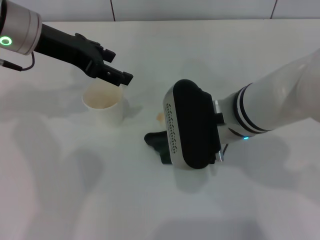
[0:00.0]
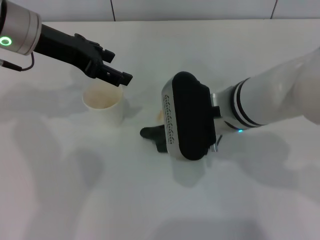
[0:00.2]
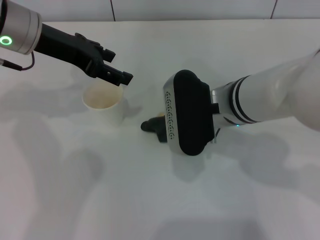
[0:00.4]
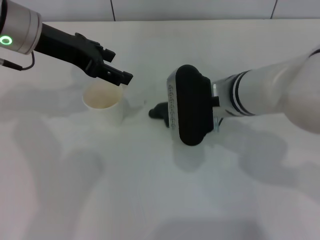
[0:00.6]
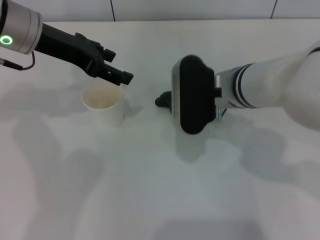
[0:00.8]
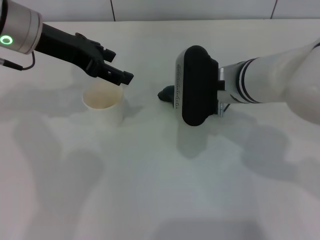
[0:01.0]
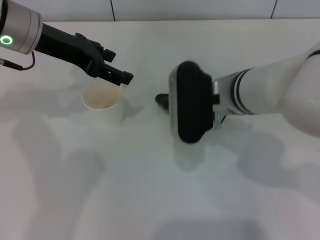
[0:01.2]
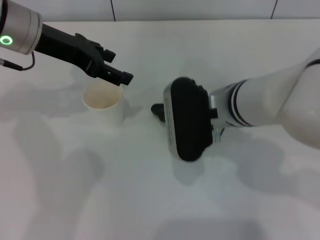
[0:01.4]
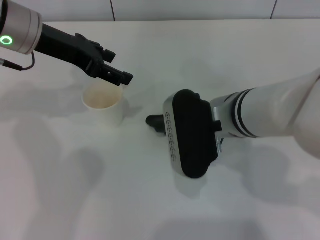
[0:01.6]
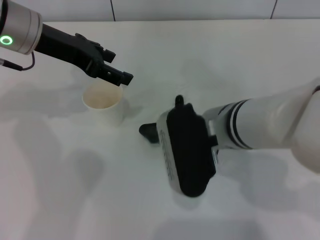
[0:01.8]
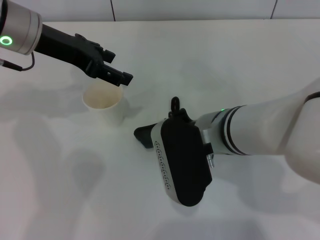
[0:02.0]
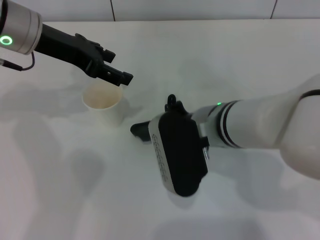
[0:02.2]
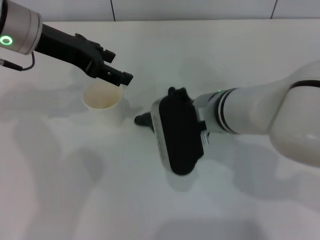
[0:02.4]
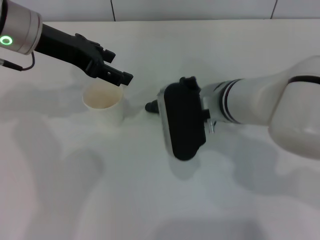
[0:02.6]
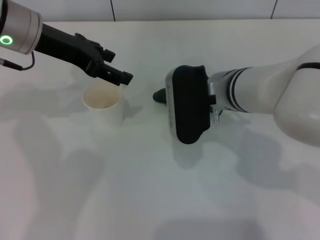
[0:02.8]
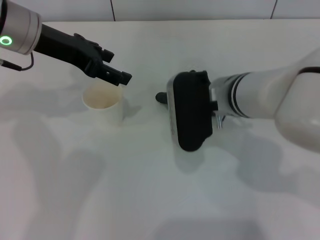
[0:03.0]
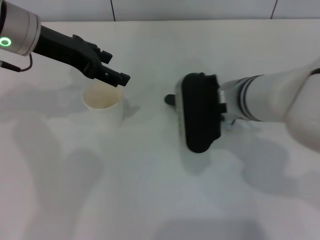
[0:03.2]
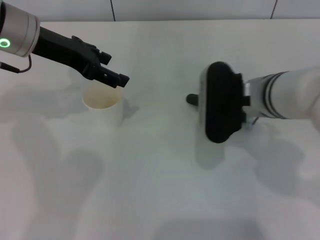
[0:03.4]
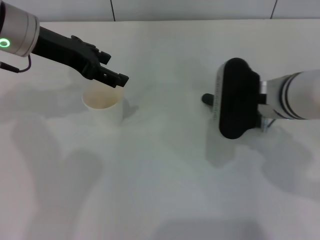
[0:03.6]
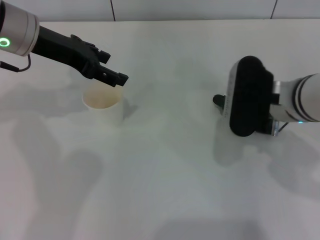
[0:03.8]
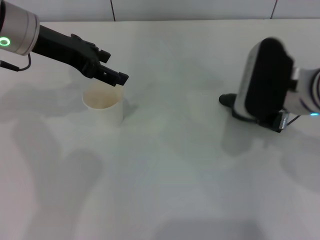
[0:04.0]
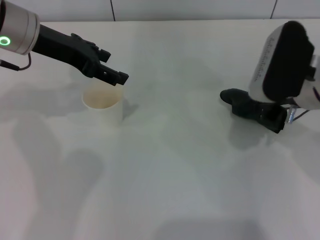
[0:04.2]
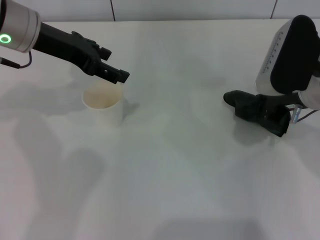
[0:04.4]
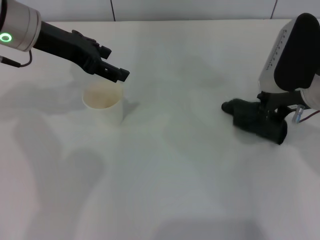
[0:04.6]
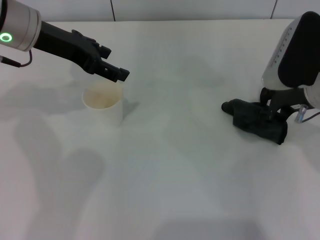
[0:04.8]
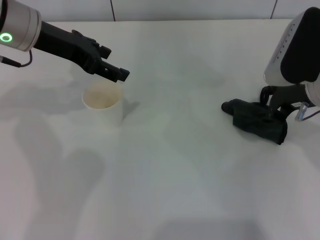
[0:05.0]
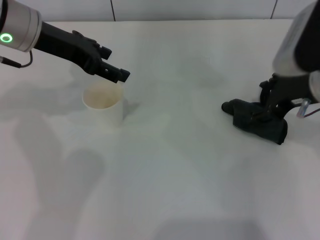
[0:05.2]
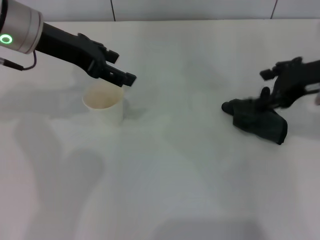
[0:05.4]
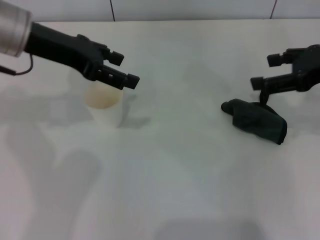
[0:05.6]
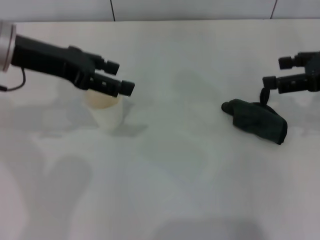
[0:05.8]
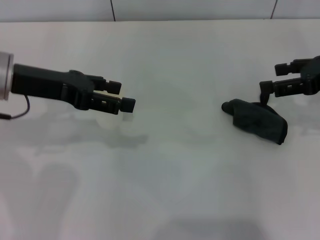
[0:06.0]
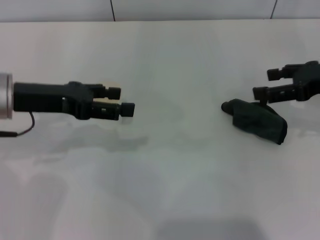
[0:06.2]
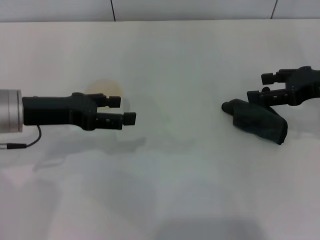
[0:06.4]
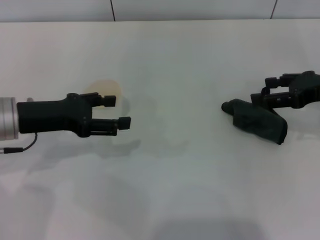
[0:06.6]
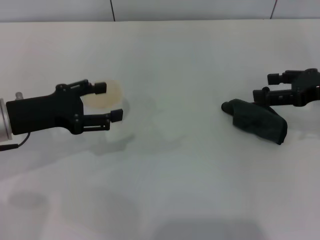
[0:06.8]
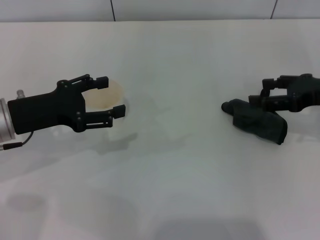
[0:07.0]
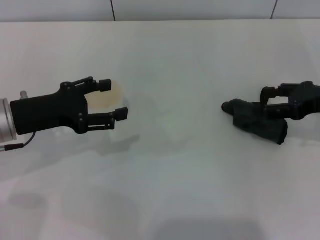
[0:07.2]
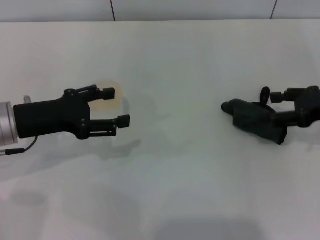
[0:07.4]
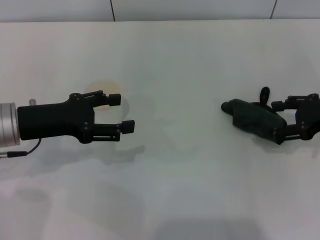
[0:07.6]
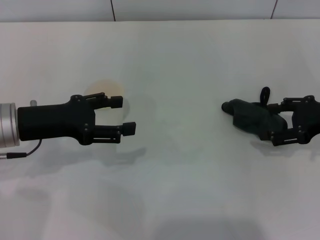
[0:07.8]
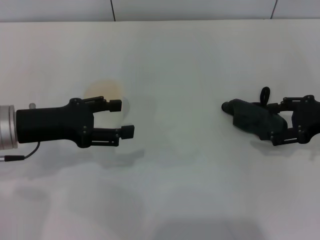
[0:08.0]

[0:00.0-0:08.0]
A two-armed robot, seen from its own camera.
Step, 0.0 to 5.6 s: Wipe the stains off the table with the right gripper.
Step, 5.8 to 6.4 s: Place the rag on the table with the right gripper.
0.0 to 1.6 s: The grippers move only a little.
1.6 to 3.2 s: The grippers stay close to where they were, moving slightly.
3.2 to 4.8 s: The right gripper is displaced to the right by roughly 10 cm.
4.8 to 6.4 s: The left gripper is displaced downward and backward by some 10 cm. Meanwhile the right gripper moves to the right, some 10 cm, and opens.

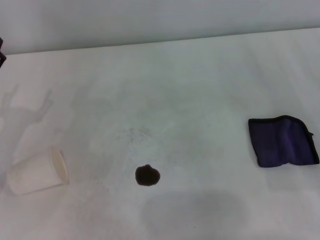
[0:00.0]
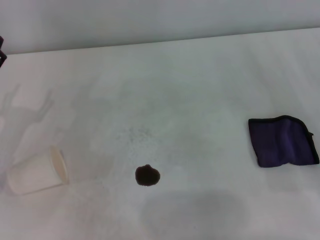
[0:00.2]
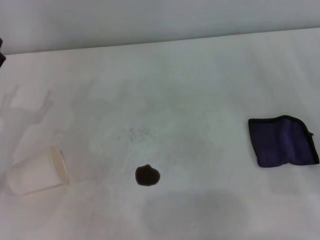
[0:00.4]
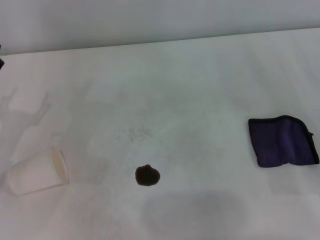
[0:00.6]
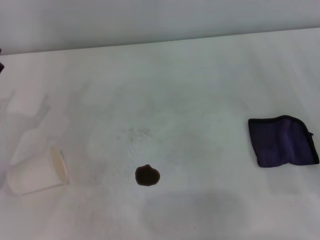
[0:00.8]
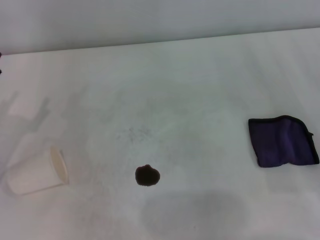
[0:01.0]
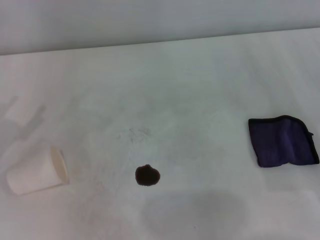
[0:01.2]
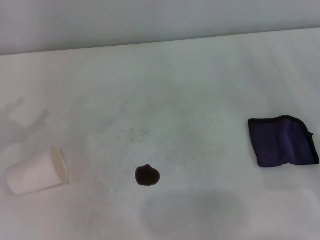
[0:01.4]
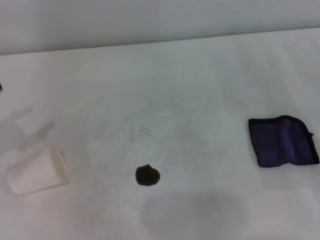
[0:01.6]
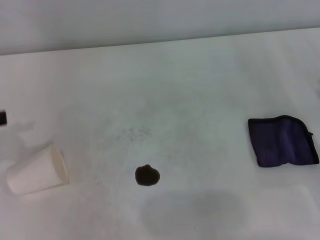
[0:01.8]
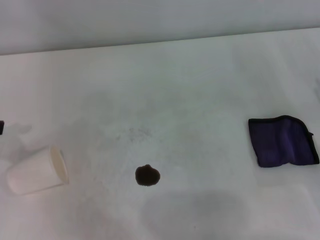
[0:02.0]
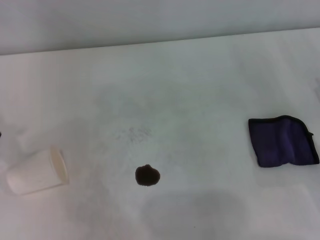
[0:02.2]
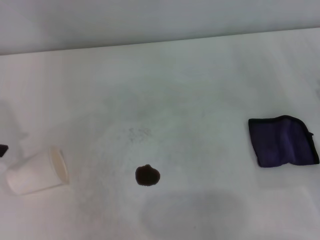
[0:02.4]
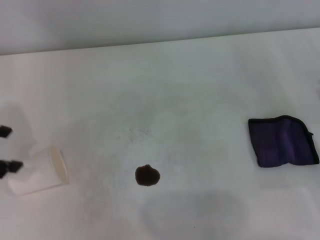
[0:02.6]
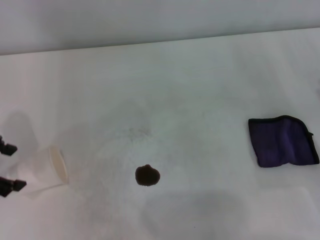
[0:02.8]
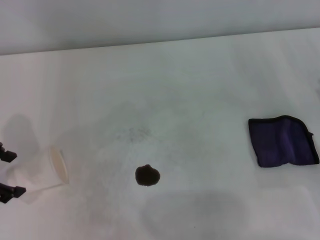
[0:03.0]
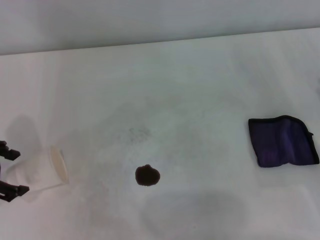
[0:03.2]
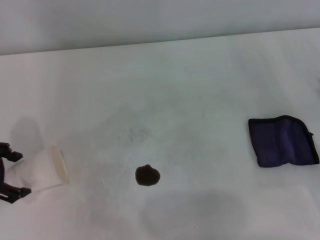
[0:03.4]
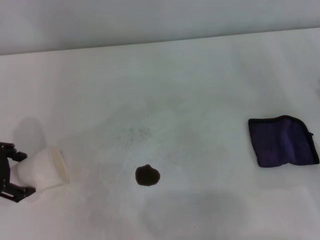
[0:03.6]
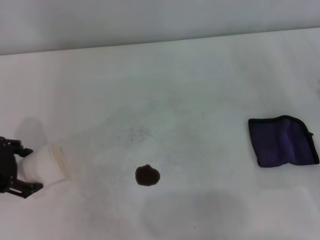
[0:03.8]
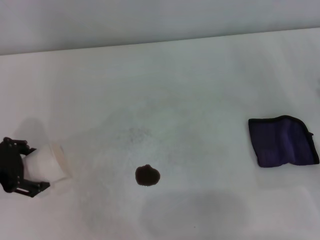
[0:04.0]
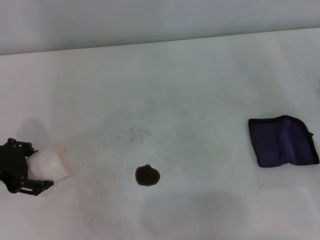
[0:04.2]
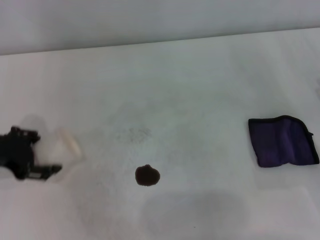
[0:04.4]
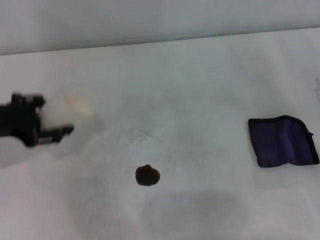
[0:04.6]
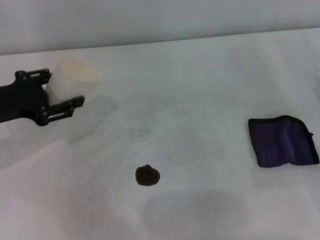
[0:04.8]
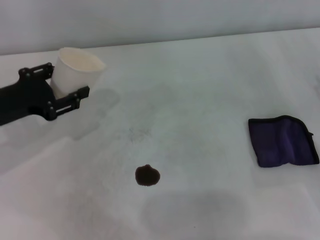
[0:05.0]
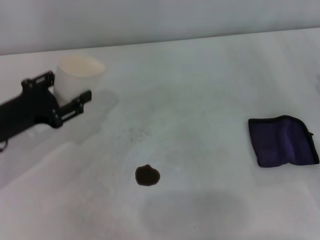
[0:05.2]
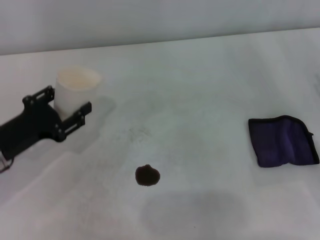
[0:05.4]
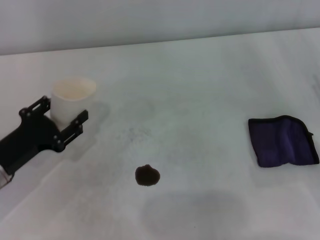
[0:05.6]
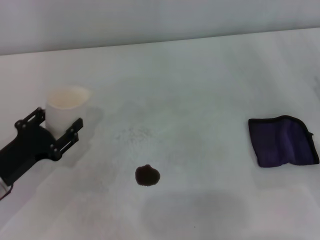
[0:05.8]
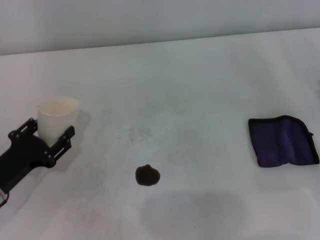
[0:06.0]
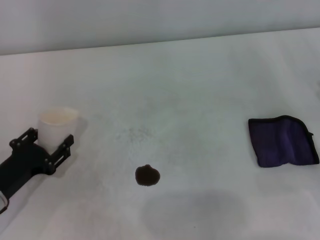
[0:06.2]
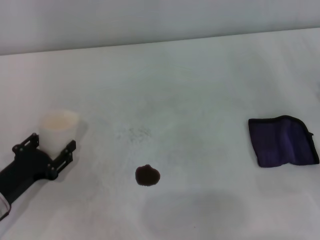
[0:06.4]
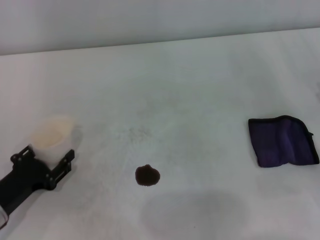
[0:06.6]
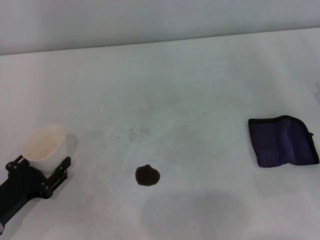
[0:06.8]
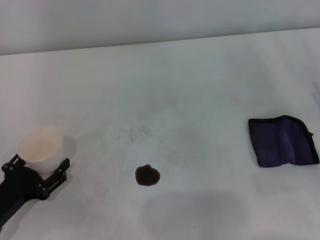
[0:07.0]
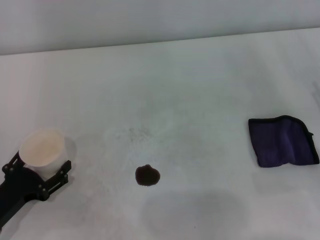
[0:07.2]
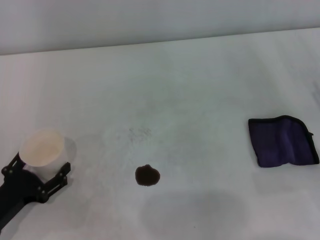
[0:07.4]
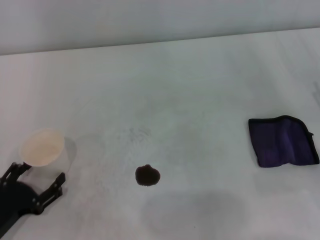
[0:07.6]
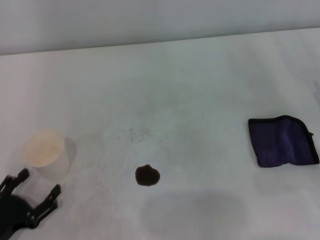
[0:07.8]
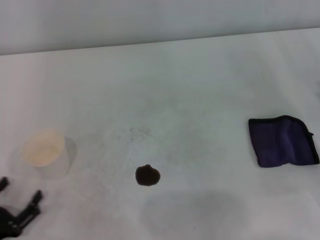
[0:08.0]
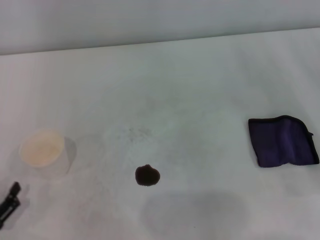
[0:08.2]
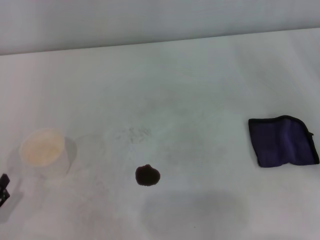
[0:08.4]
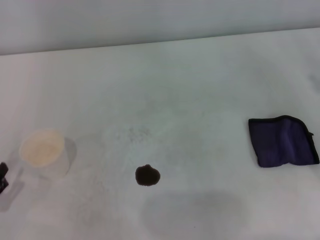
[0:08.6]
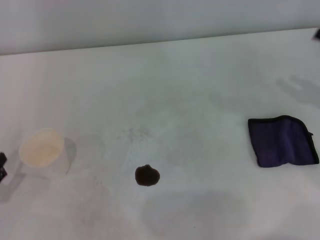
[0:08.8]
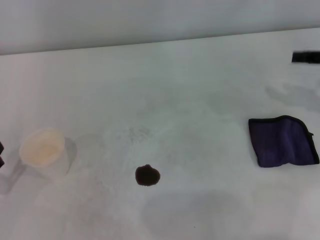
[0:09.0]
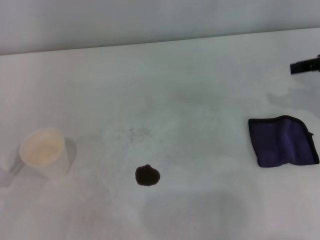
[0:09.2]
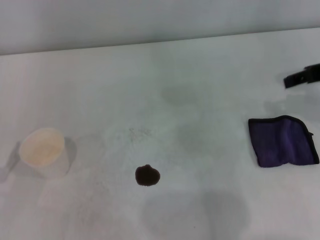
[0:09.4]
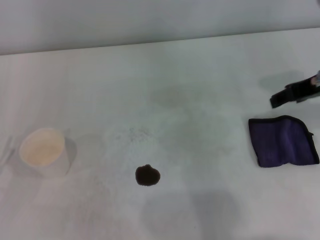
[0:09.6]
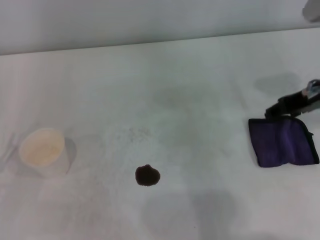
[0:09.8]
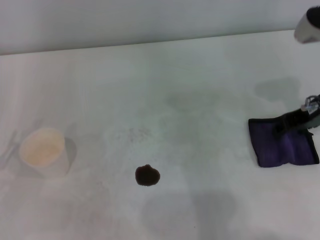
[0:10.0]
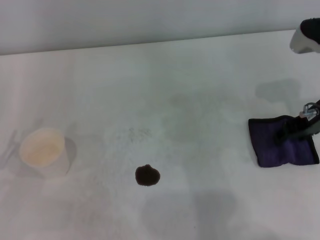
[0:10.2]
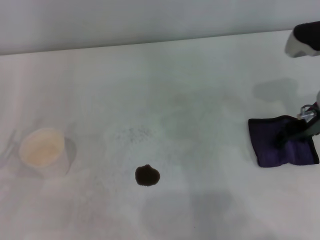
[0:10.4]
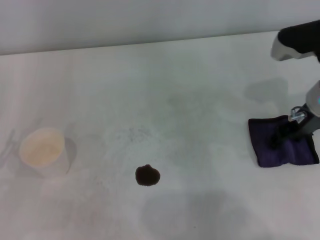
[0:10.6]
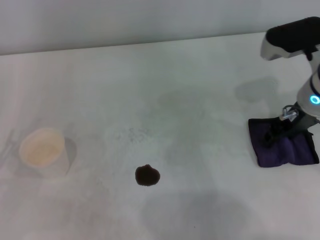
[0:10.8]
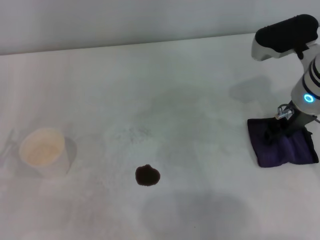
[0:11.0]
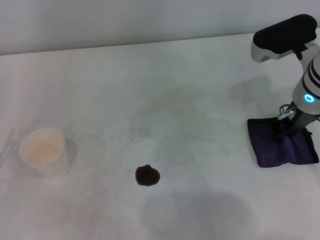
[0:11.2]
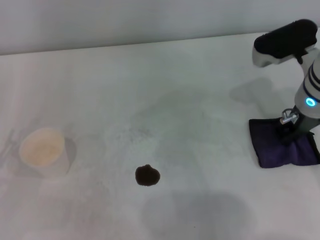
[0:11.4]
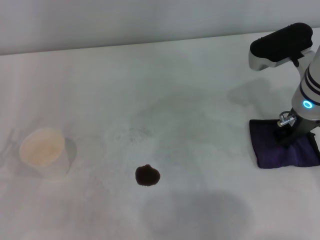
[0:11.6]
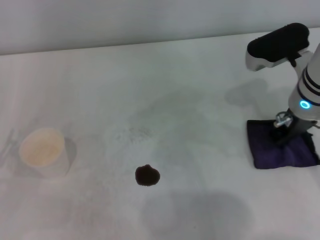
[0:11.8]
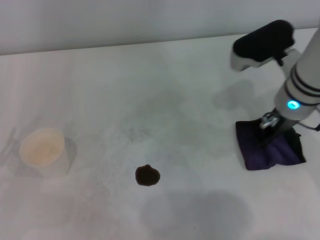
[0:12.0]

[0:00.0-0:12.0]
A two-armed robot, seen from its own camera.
Step, 0.0 to 4.0 s: Grasp the paper cup with the left gripper.
Step, 4.4 to 7.2 s: Stand the paper cup upright with the left gripper.
Step, 7.4 to 11.6 s: Grasp the rag with the right gripper.
1.6 to 3.0 s: The left gripper is displaced to the right by roughly 5 cm.
3.0 to 4.4 s: The left gripper moves some 5 cm, and closes up.
4.4 to 6.0 s: The left gripper goes roughly 15 cm downward and backward, and closes.
6.0 to 7.6 s: The left gripper moves backward, approximately 5 cm, and opens up.
7.6 to 9.0 s: The left gripper ends up approximately 5 cm from where it was.
9.0 to 10.4 s: The right gripper shifts about 10 cm to the left.
10.4 to 12.0 s: The right gripper travels to the left by about 5 cm, and closes.

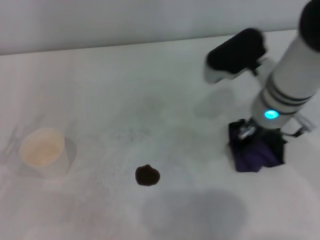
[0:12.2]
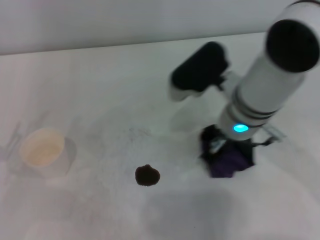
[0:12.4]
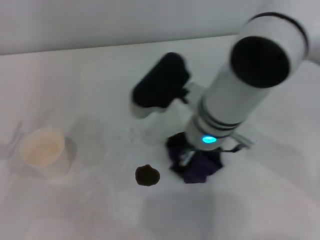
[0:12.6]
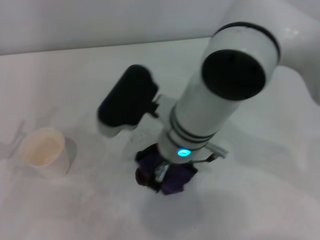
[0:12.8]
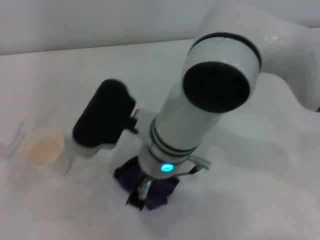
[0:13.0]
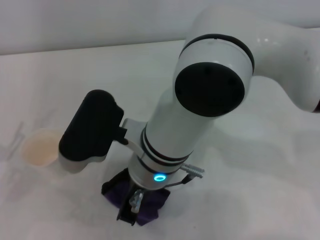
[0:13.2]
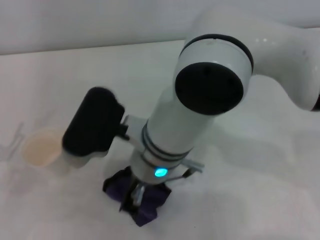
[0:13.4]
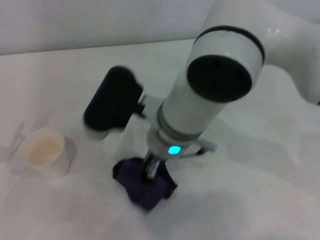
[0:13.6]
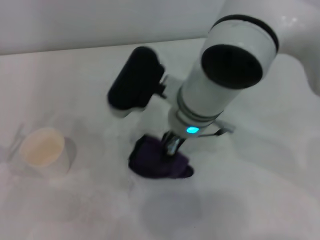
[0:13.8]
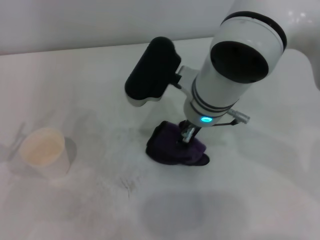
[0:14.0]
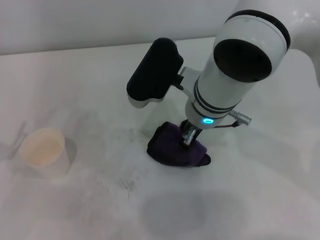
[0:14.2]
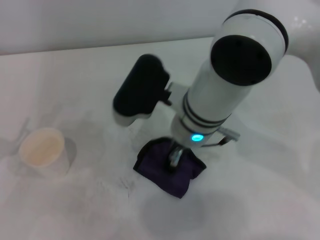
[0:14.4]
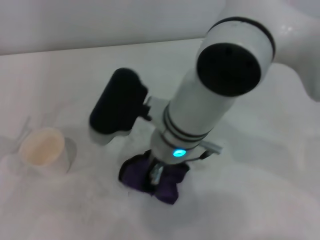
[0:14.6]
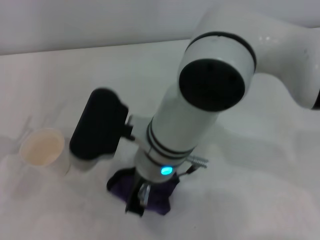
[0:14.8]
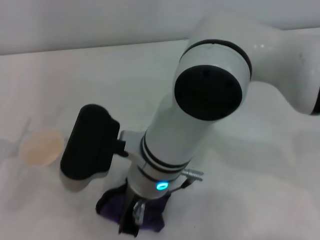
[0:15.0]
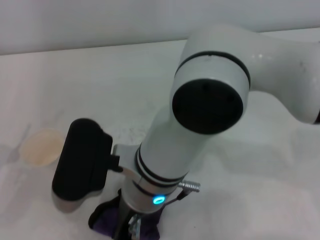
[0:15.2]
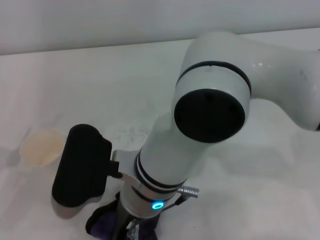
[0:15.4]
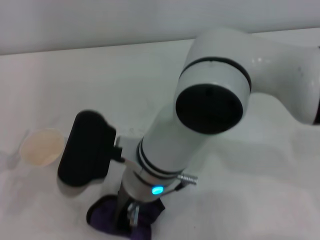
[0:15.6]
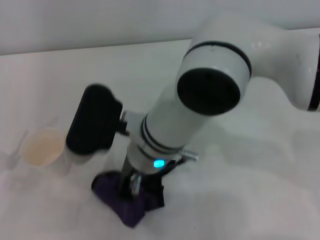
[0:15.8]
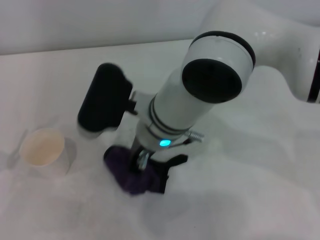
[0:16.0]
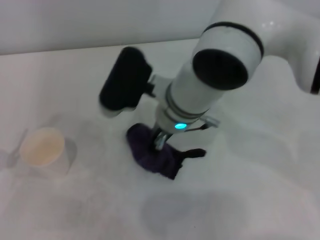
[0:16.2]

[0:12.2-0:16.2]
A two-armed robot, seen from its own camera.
12.2 to 13.6 s: The right gripper moves to the left, about 15 cm.
14.8 to 16.2 s: The right gripper travels forward by approximately 5 cm.
